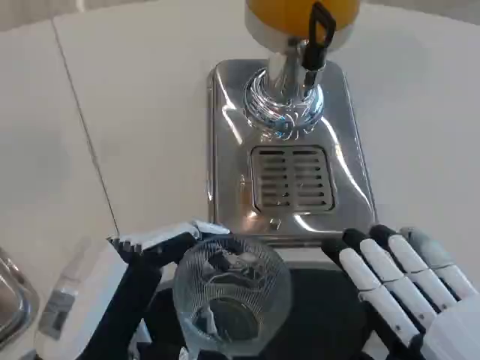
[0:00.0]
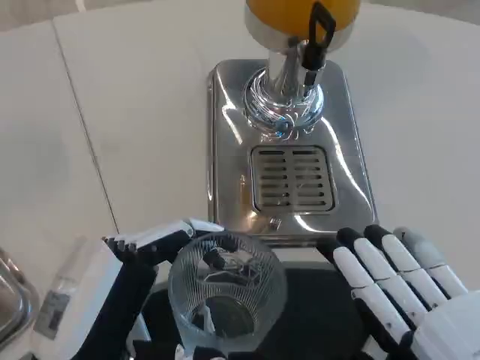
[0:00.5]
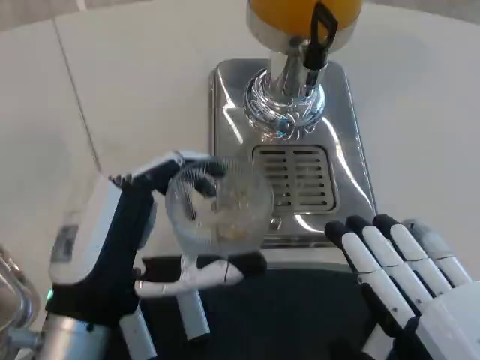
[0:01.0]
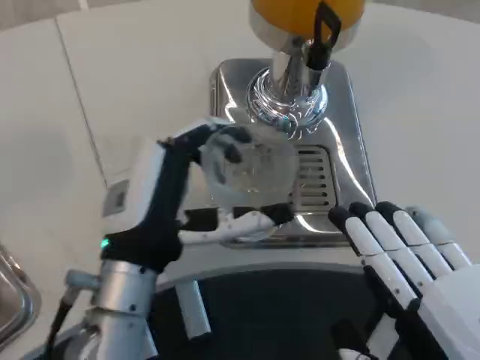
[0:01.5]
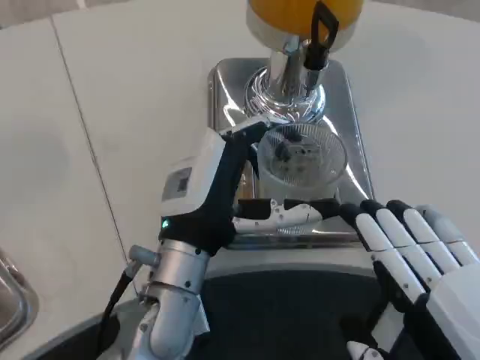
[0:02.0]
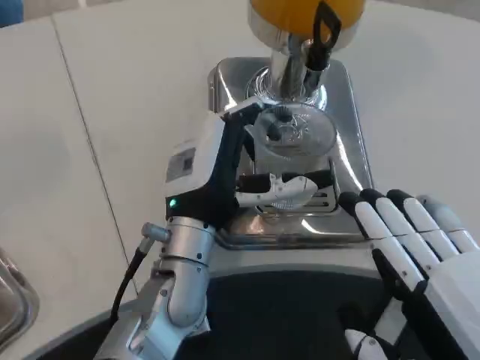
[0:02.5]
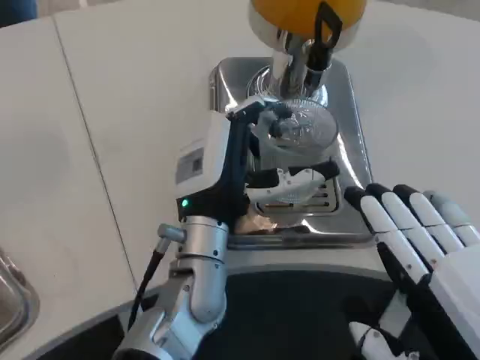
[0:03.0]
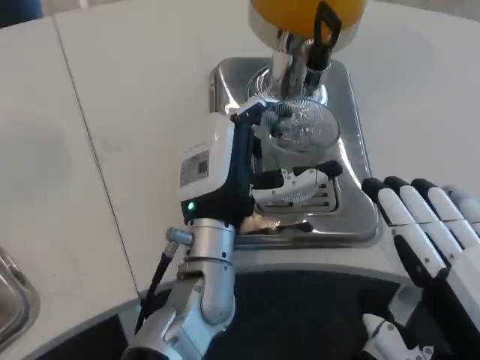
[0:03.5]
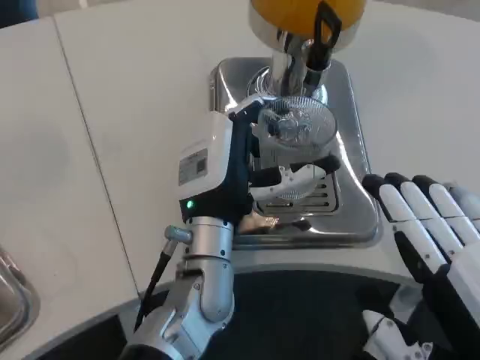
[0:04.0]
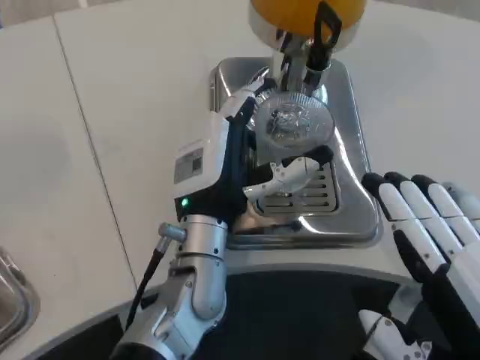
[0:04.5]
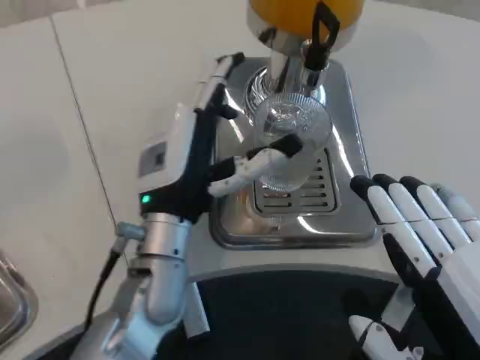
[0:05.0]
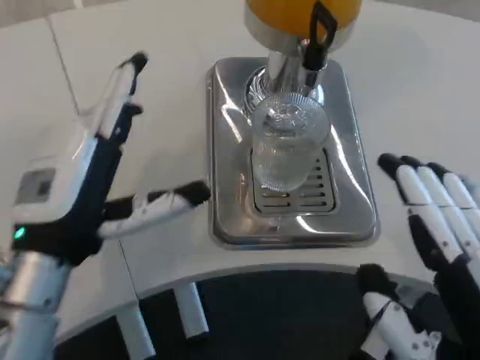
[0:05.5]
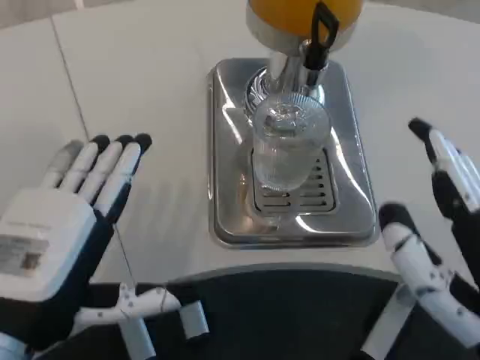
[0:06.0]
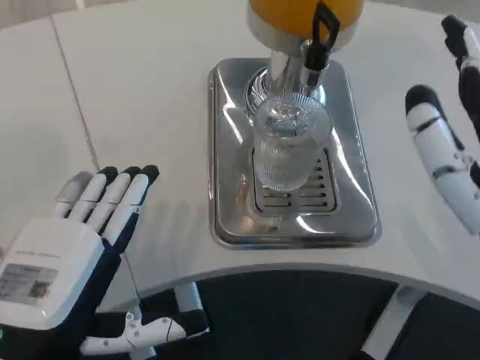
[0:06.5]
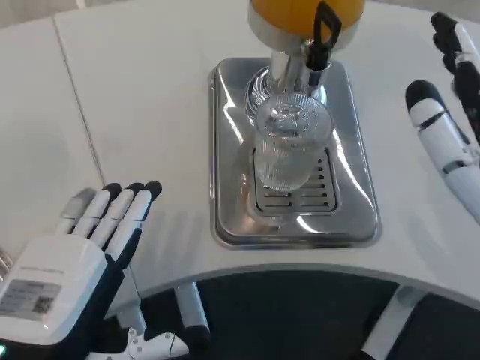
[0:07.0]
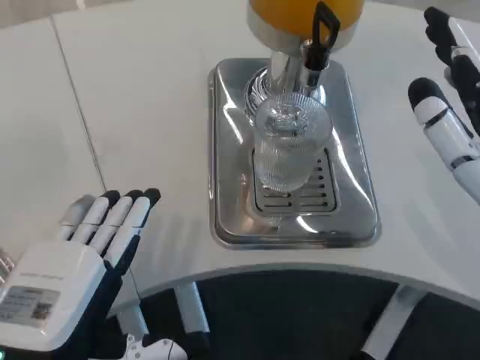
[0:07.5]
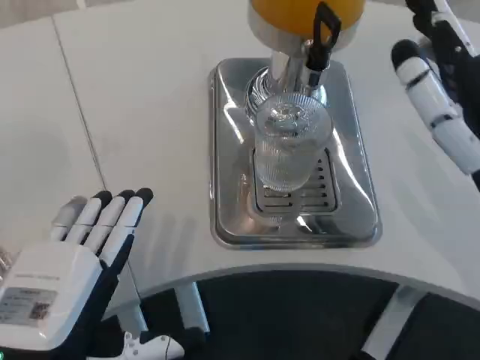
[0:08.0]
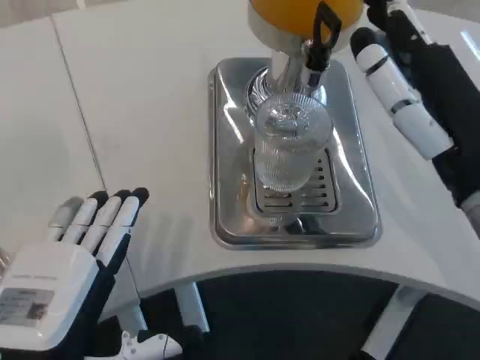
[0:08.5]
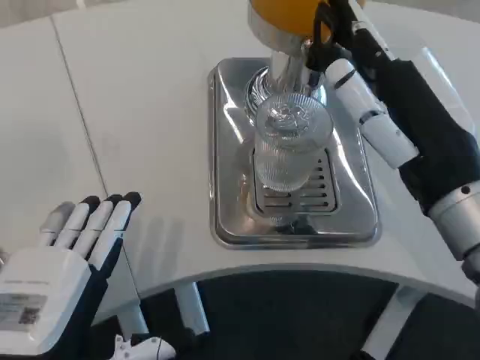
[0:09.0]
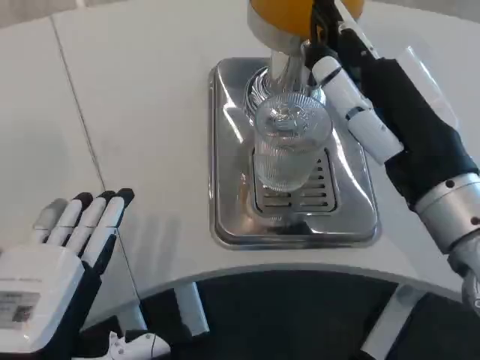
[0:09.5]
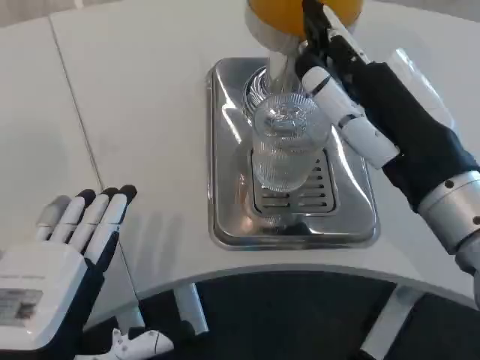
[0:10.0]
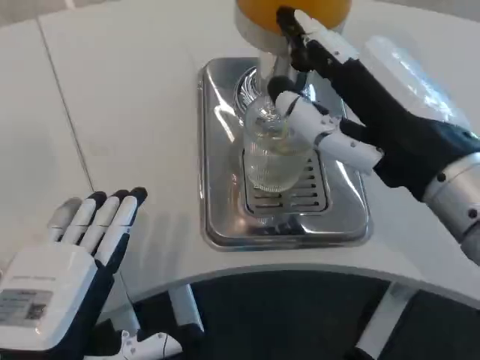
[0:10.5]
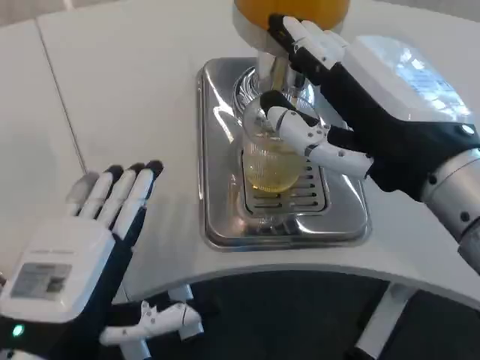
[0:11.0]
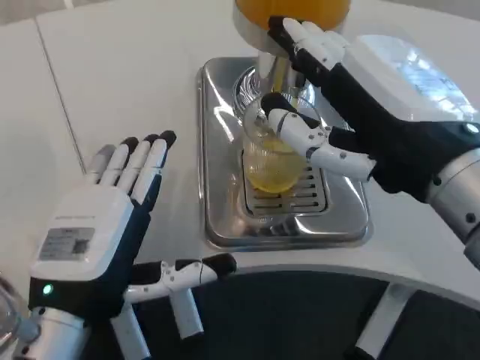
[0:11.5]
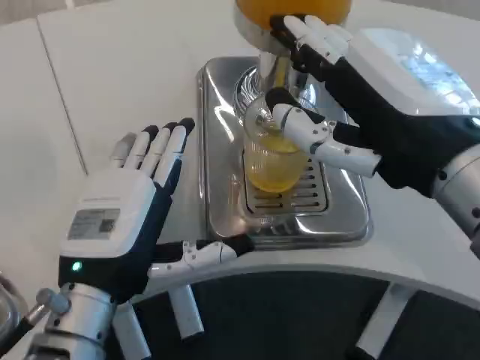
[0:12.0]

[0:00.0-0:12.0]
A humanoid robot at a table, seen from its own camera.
Task of the whole recording: Grasp the cup under the faucet to collect the drink, then remove the cup.
0.0 to 2.0 s: The left hand travels forward and to the right by about 15 cm.
2.0 to 4.0 s: The left hand ends up about 5 cm from where it was.
4.0 to 6.0 s: The left hand goes roughly 20 cm to the left and backward.
6.0 to 8.0 s: The right hand travels forward by approximately 10 cm.
10.0 to 12.0 s: The right hand moves about 5 cm; the left hand goes roughly 10 cm forward.

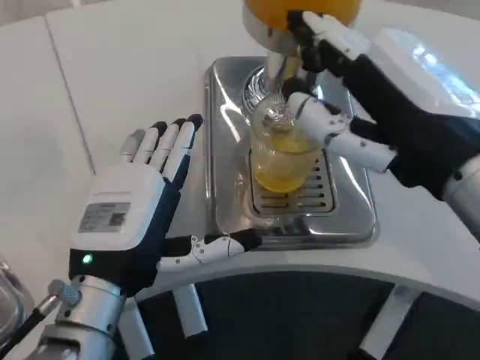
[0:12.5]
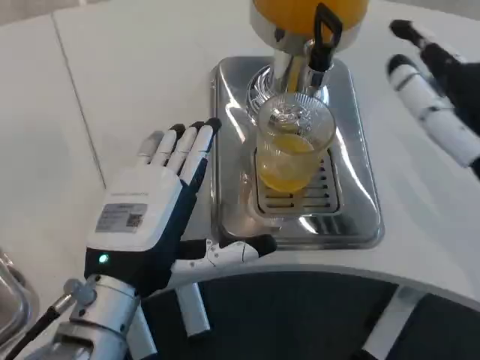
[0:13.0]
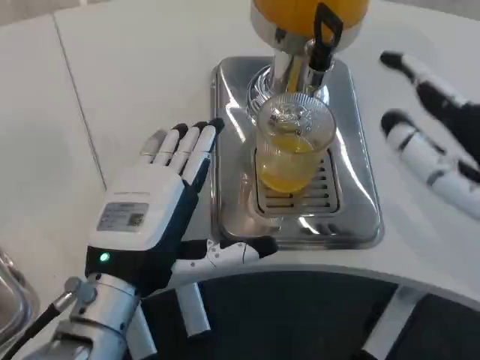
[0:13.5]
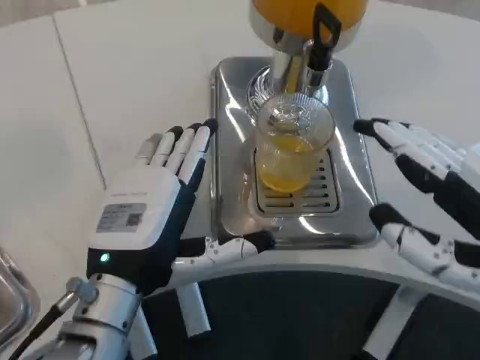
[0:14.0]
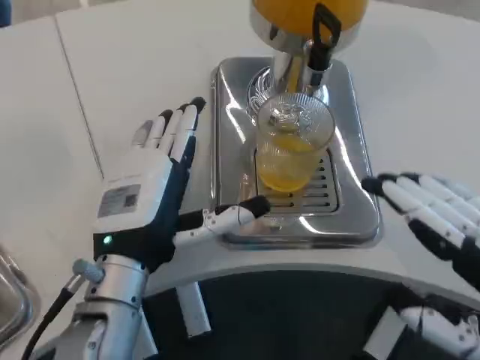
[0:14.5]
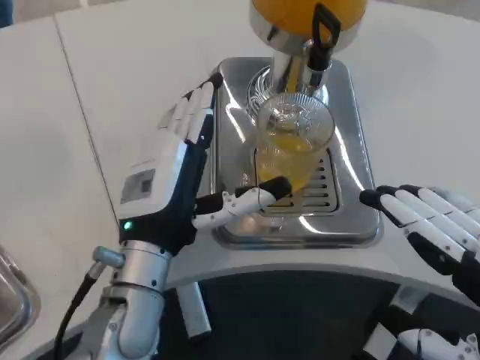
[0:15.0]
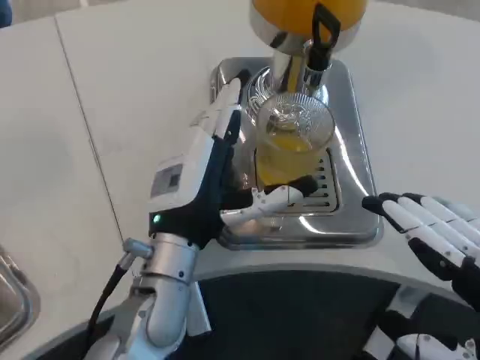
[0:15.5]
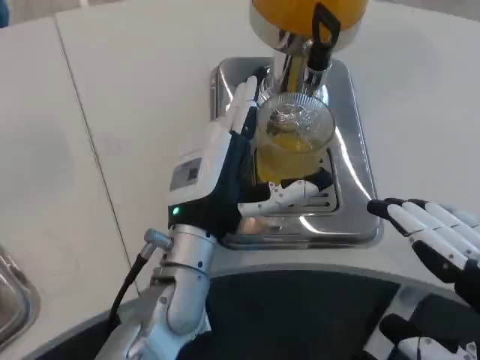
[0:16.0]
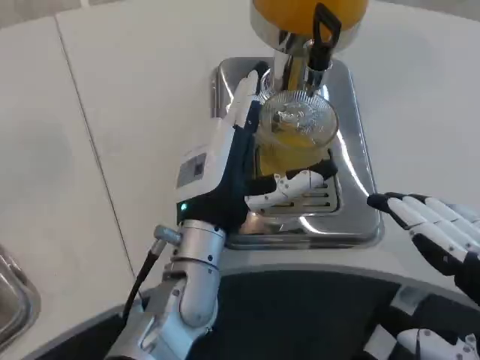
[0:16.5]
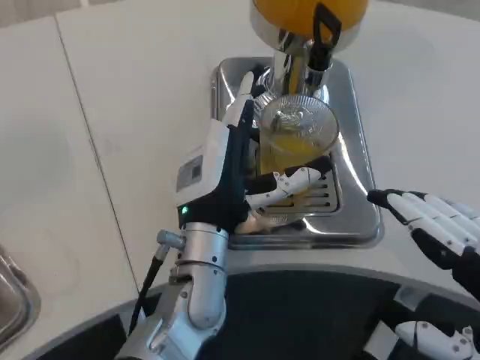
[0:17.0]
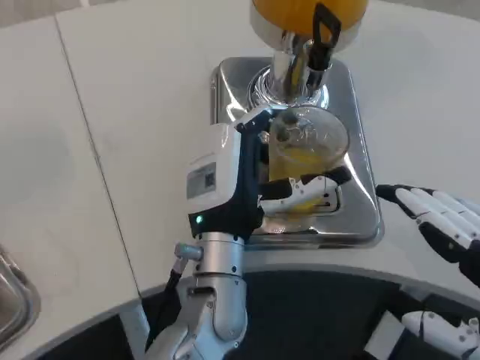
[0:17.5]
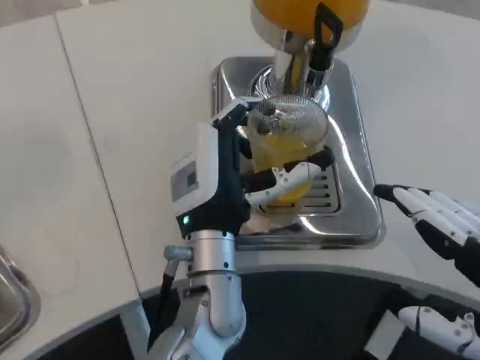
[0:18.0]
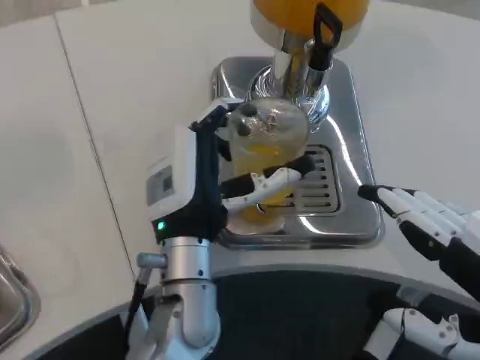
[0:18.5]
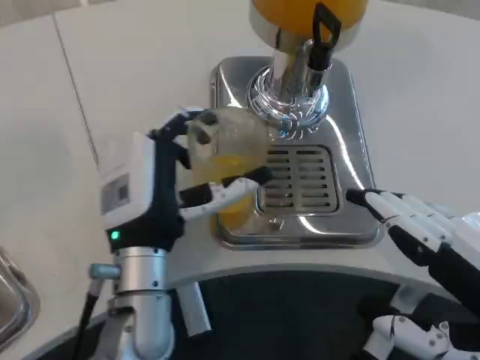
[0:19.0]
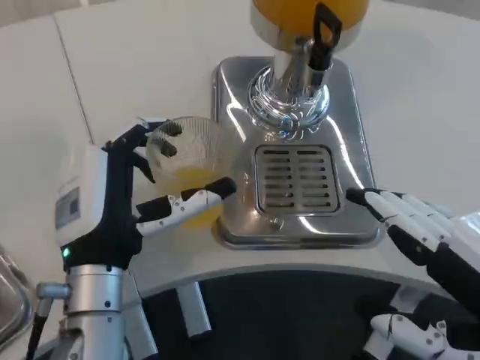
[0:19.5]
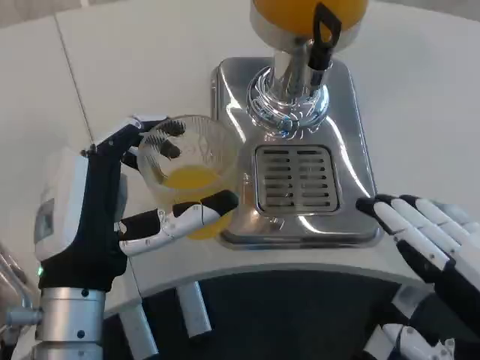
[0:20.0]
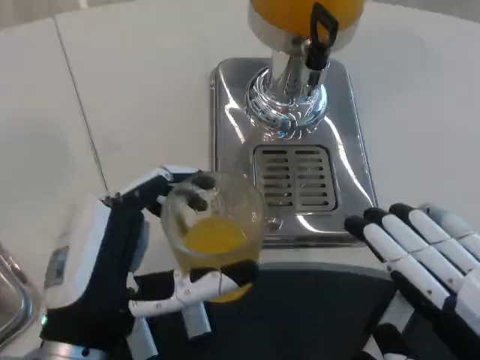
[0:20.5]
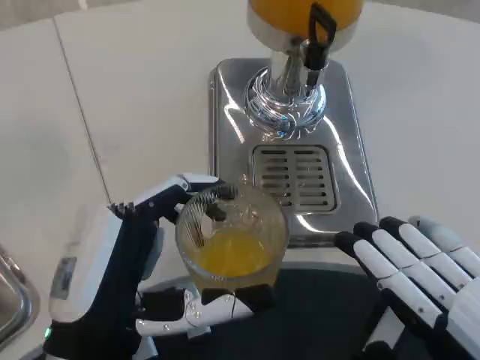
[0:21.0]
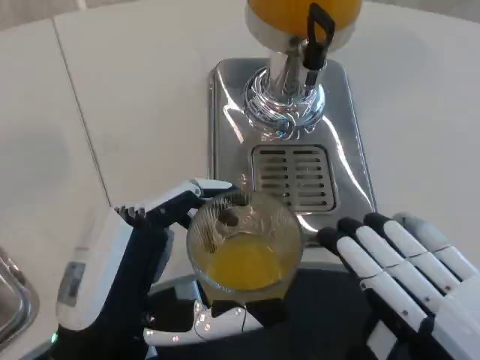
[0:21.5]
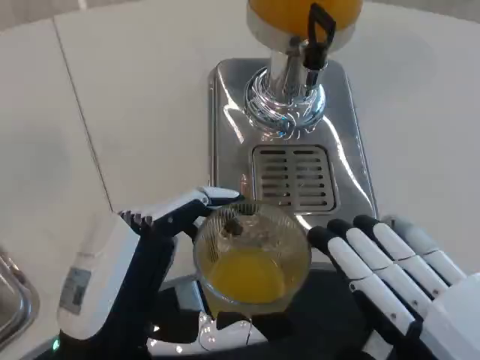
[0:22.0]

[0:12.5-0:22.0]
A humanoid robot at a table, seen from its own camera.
Task of the whole recording: Grasp the cup under the faucet to collect the drink, then remove the cup.
12.5 to 14.5 s: The right hand shifts some 15 cm to the right, backward and downward.
14.5 to 16.5 s: The left hand is displaced to the right by about 5 cm.
16.5 to 18.0 s: The hands make only small movements.
18.0 to 20.0 s: The left hand goes some 15 cm to the left and backward.
20.0 to 22.0 s: The left hand travels backward by about 5 cm.

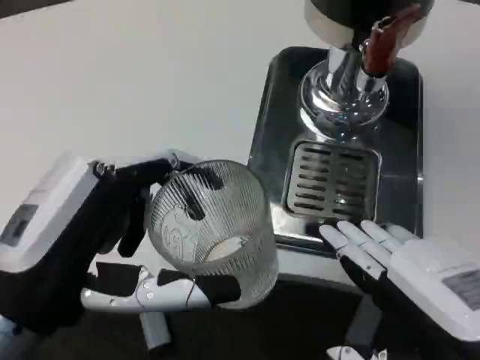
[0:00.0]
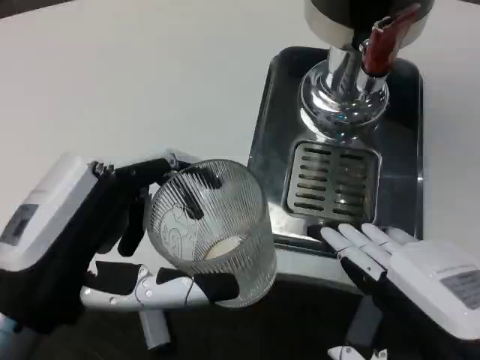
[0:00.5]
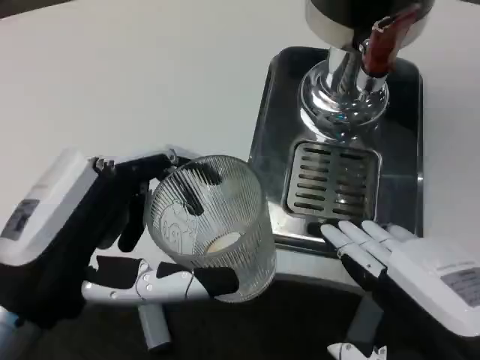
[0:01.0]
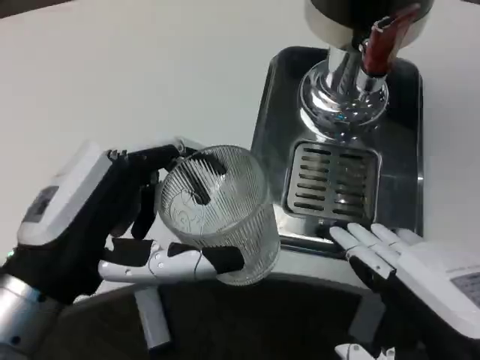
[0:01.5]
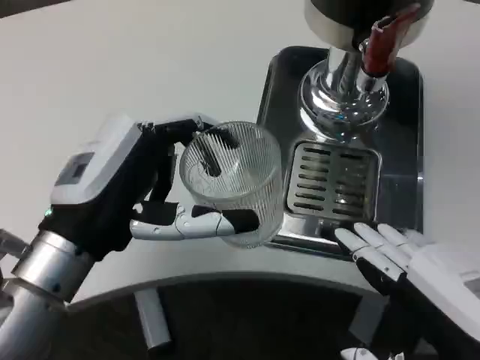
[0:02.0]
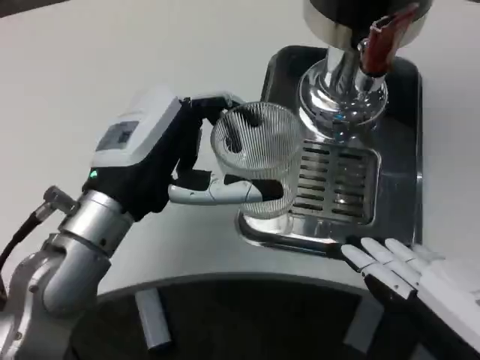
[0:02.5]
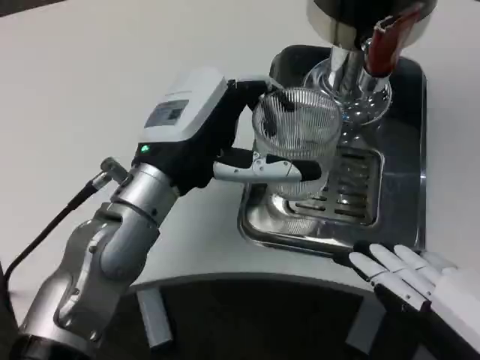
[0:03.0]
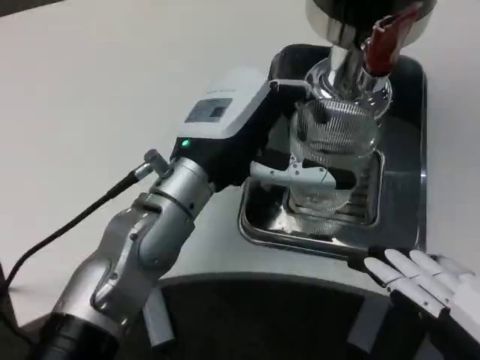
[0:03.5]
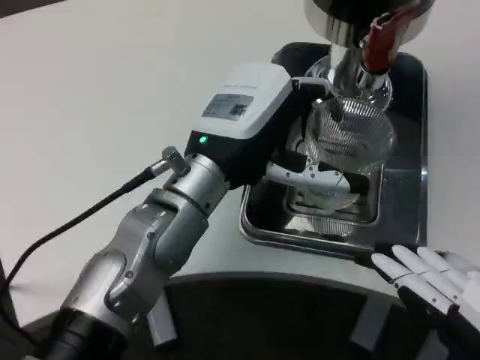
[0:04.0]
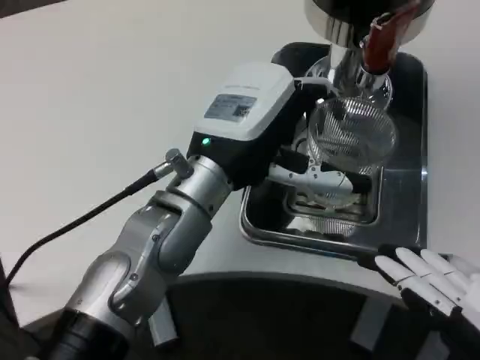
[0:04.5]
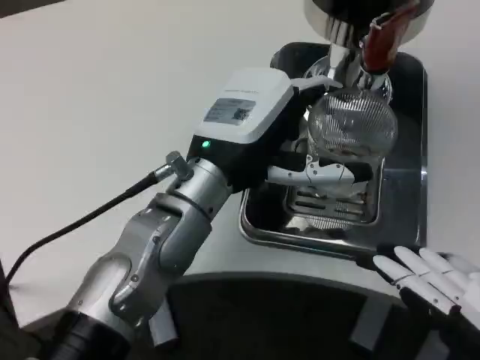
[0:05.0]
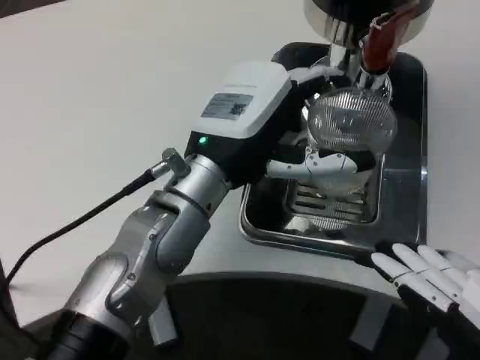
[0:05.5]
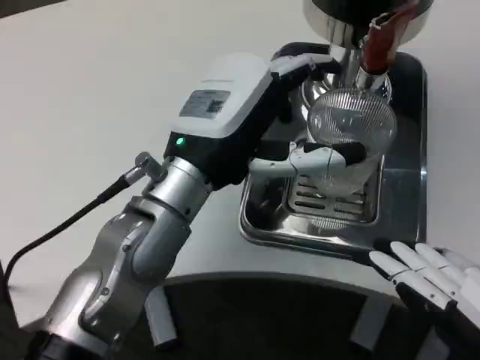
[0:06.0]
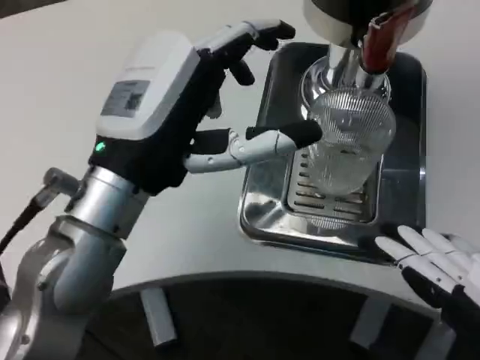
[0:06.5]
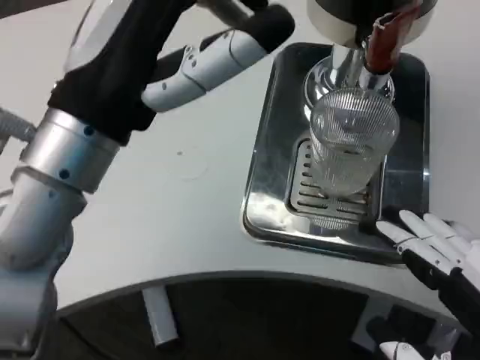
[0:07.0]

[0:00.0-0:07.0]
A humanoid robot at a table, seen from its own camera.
Task of the whole recording: Grasp the cup under the faucet to collect the drink, then remove the cup.
0.0 to 2.0 s: The left hand travels forward by about 5 cm.
2.0 to 3.5 s: The left hand heads to the right and forward, covering about 10 cm.
5.0 to 7.0 s: The left hand moves upward, backward and to the left, roughly 15 cm.
